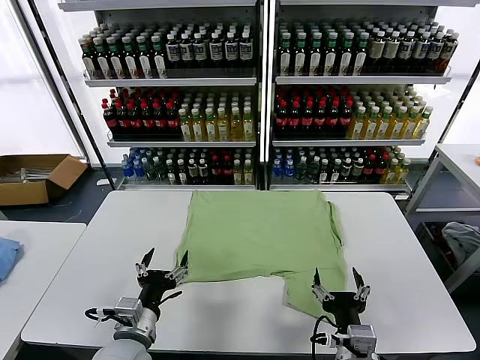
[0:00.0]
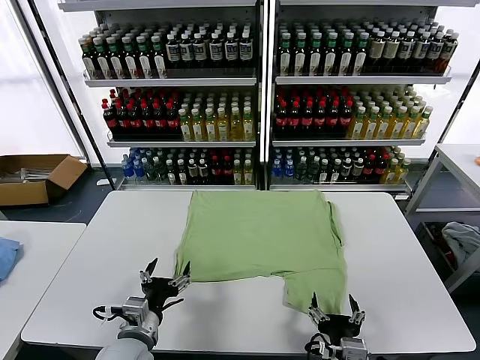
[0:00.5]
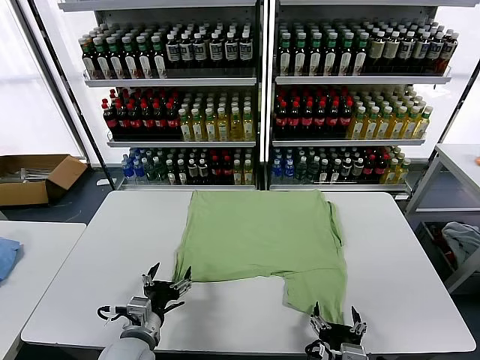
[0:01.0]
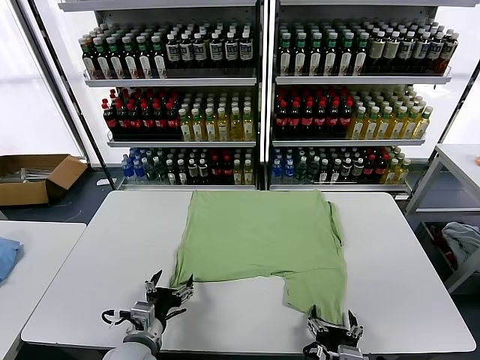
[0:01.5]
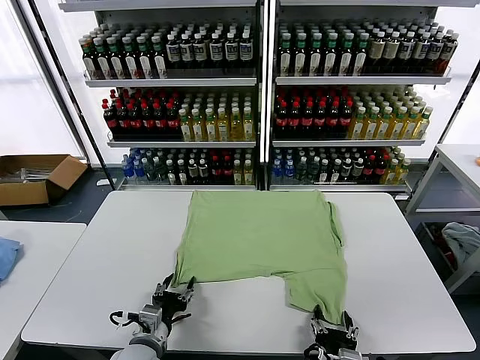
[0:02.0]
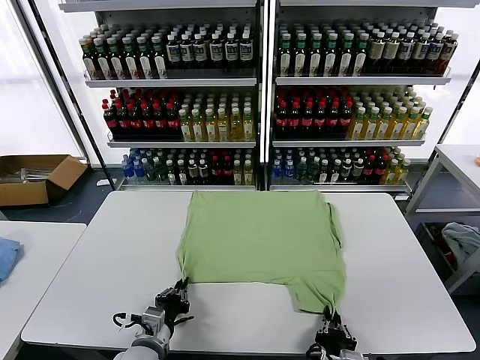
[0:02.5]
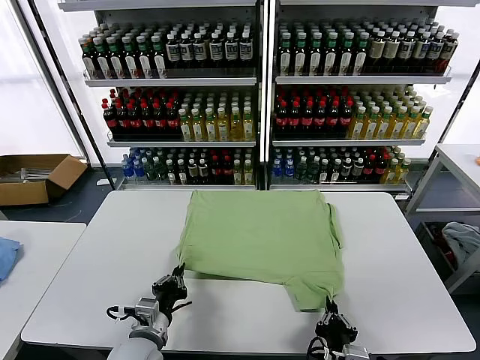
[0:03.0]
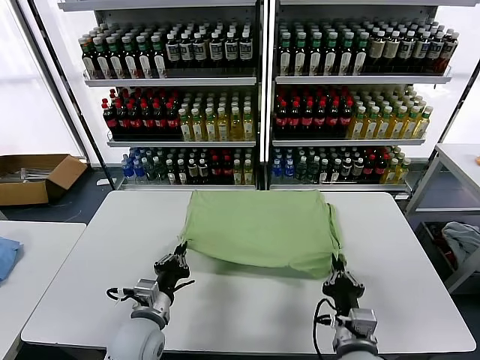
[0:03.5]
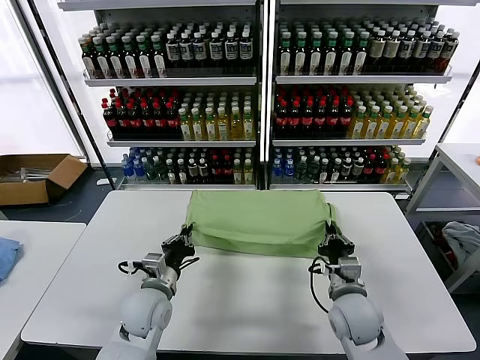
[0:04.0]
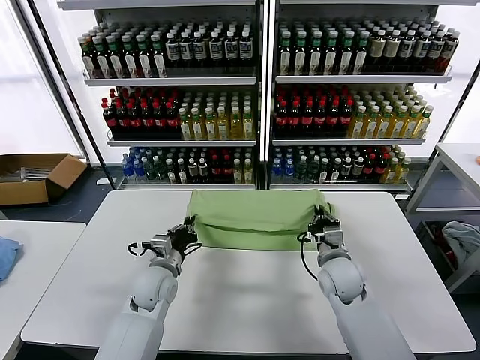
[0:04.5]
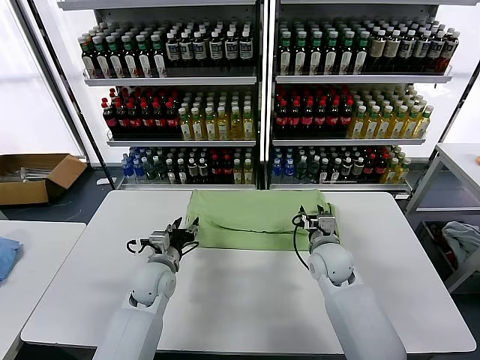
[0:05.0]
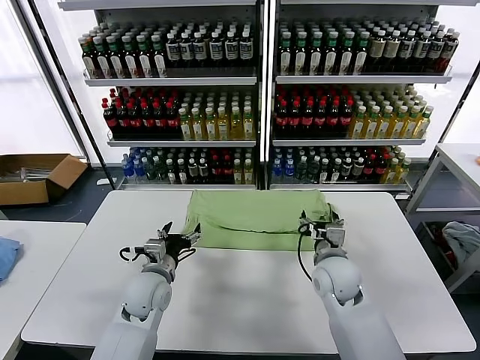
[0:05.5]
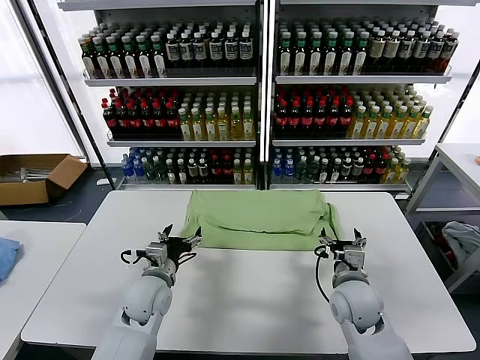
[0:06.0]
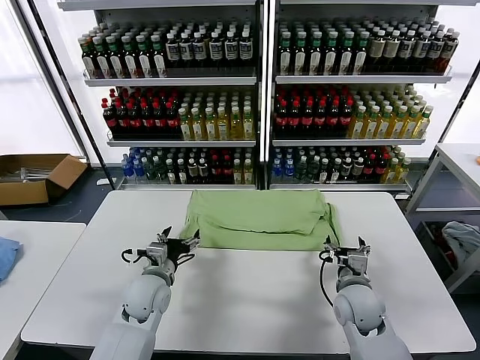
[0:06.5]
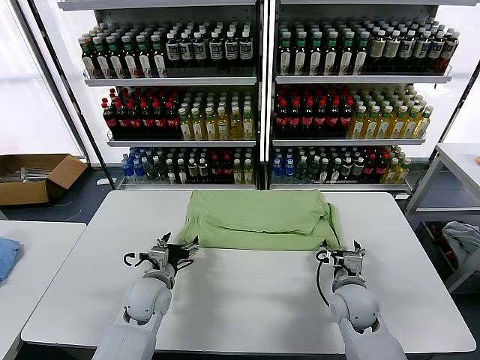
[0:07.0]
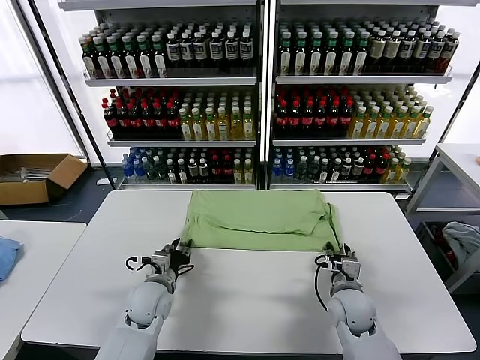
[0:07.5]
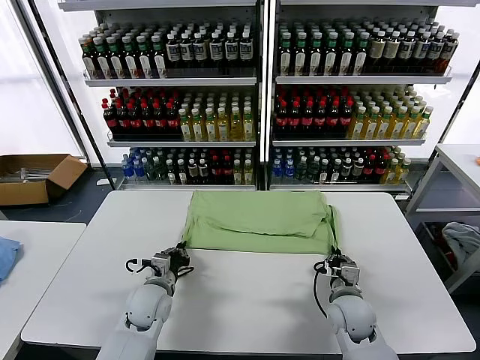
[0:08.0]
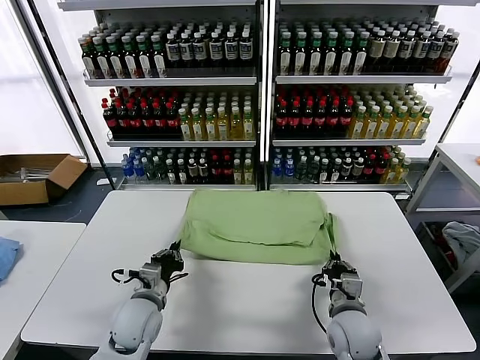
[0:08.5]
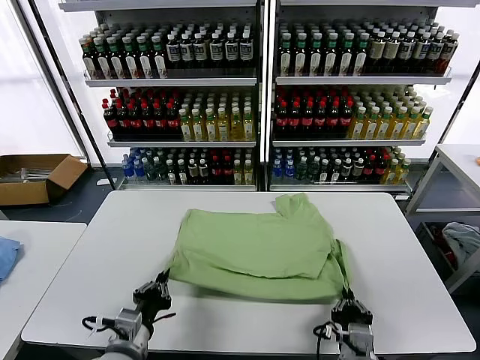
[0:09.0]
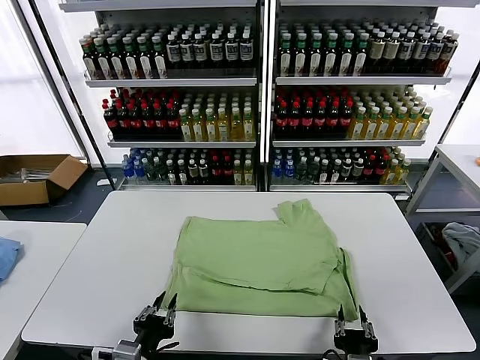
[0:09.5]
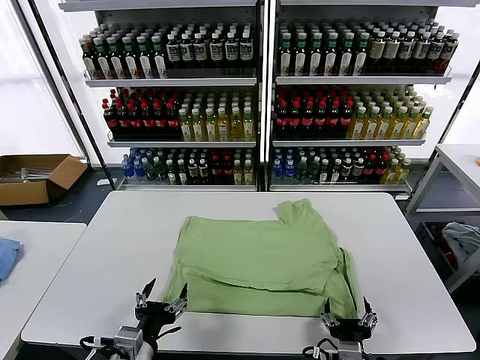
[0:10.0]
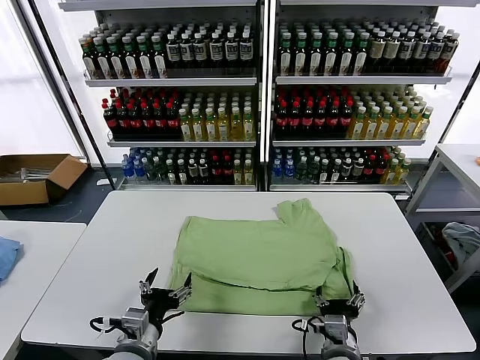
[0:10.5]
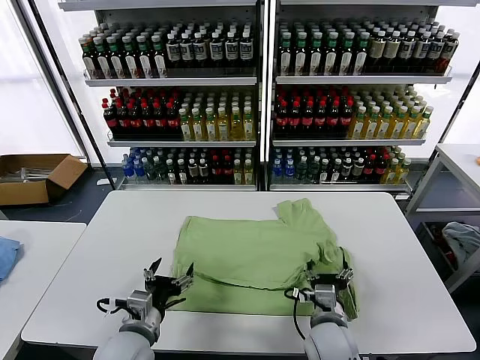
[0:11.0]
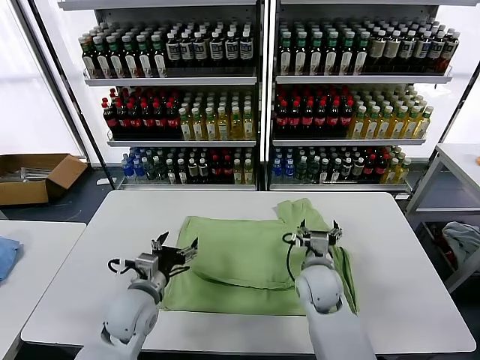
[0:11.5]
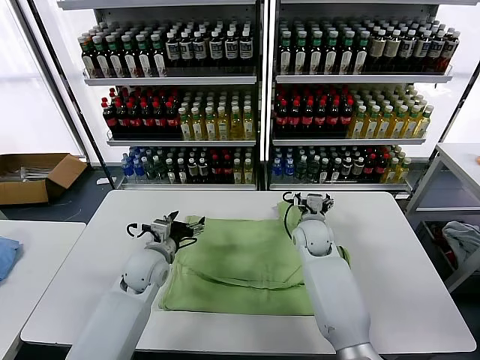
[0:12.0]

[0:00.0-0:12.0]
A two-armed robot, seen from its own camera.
Task of the whole recording: fold and organize the clothes.
Step, 0:00.0 to 0:02.5: use both grippers simultaneously to clamp the lower edge of the clothing fabric.
Step, 0:03.0 to 0:05.0: use both grippers to drag the lower edge of the fabric forward and fold it over the upper edge.
Step, 0:05.5 to 0:09.5: Drag the clothes downward with both gripper.
0:02.0 to 0:04.0: The left gripper goes some 10 cm forward, and closes up, while the right gripper travels forward by some 20 cm, and closes up.
0:04.0 to 0:06.0: The right gripper goes forward and returns, roughly 10 cm each way, and opens its fingers. Meanwhile the left gripper opens.
0:06.0 to 0:08.0: The right gripper moves downward, about 5 cm, and closes up; the left gripper closes up.
0:08.0 to 0:10.0: The grippers both shift backward by approximately 20 cm. The right gripper opens up, while the left gripper opens up.
0:10.0 to 0:12.0: The two grippers go approximately 30 cm forward.

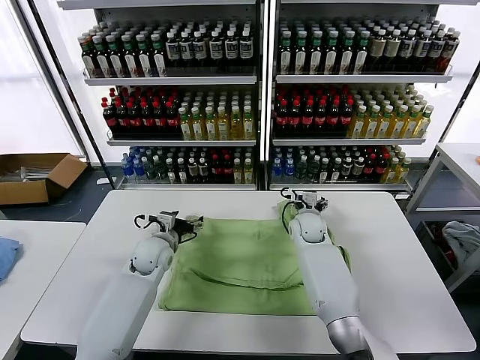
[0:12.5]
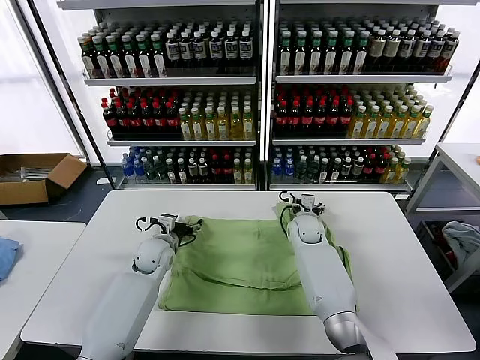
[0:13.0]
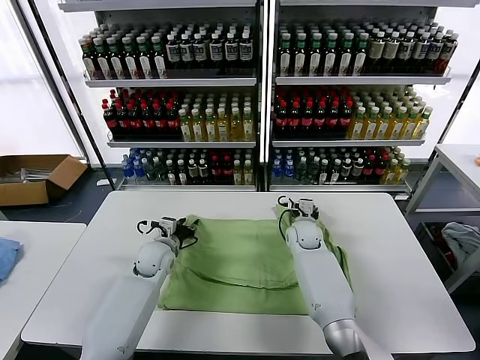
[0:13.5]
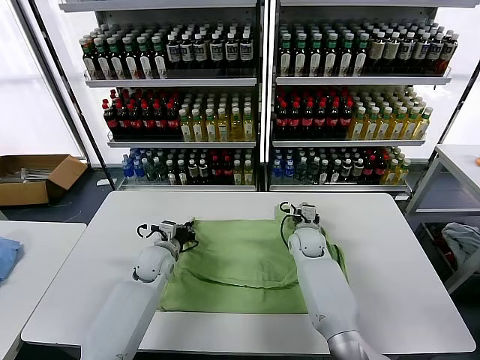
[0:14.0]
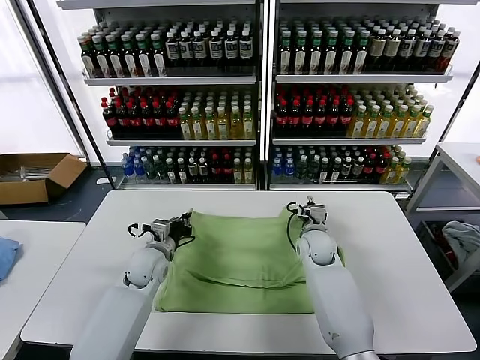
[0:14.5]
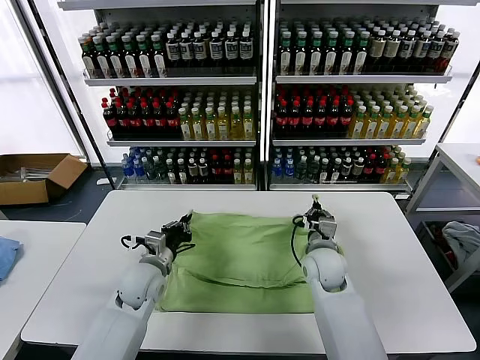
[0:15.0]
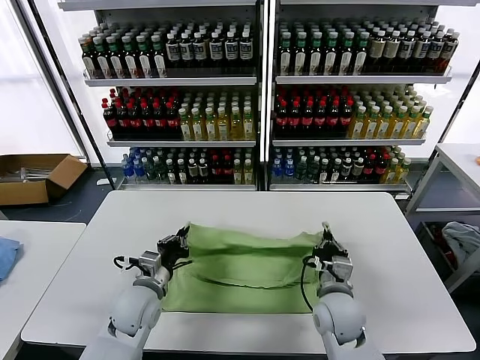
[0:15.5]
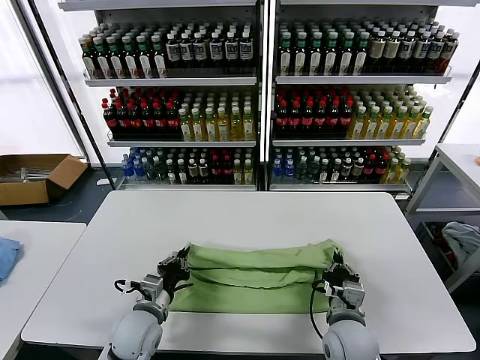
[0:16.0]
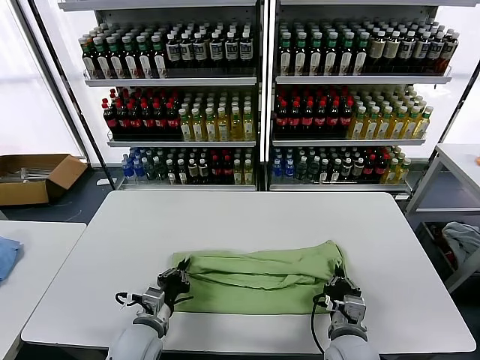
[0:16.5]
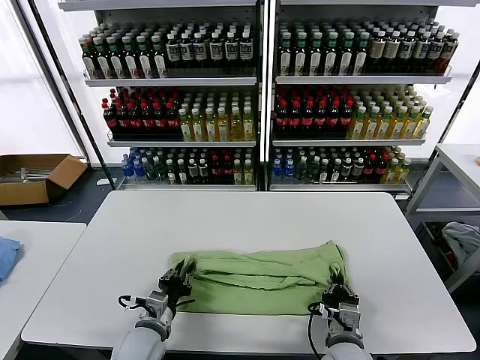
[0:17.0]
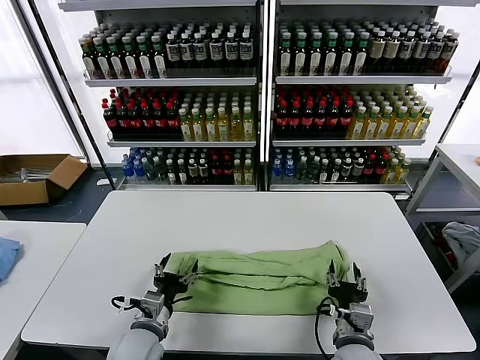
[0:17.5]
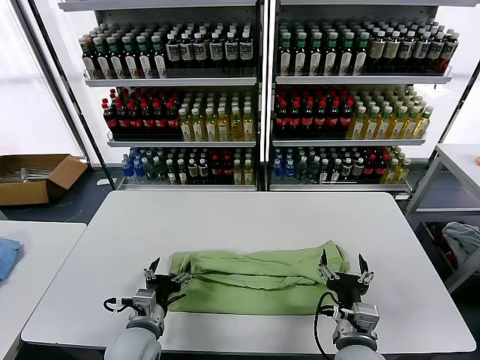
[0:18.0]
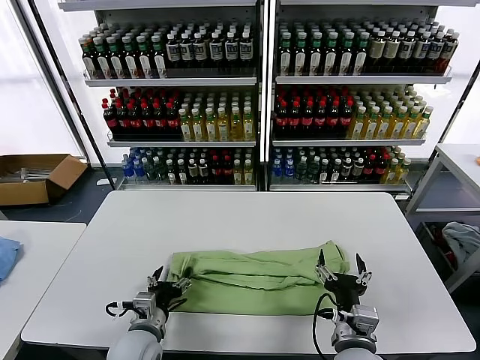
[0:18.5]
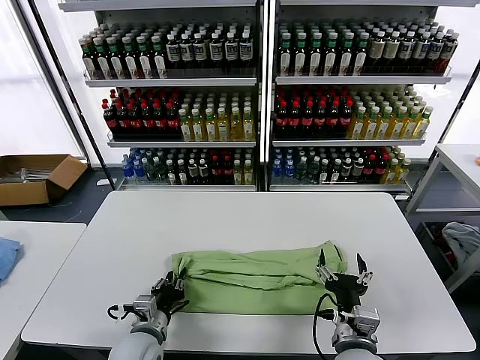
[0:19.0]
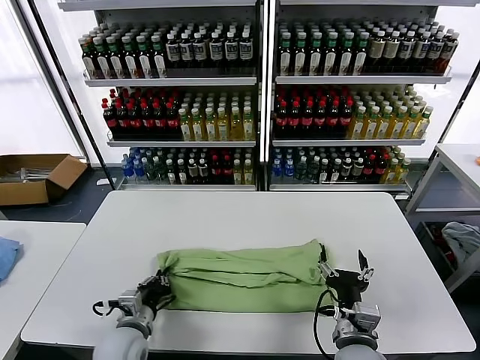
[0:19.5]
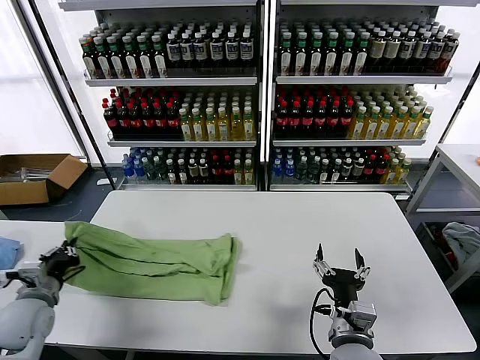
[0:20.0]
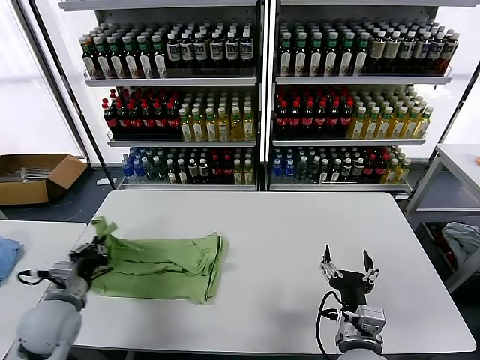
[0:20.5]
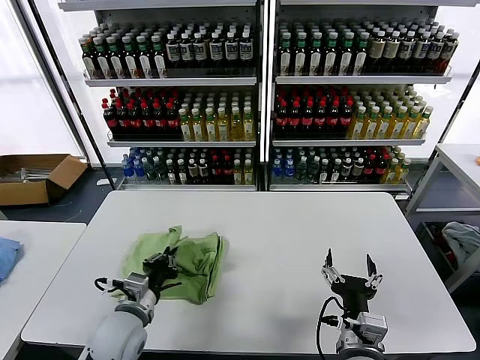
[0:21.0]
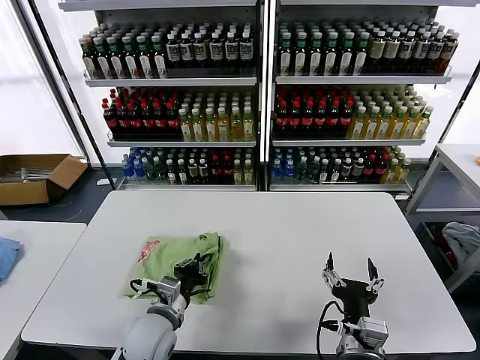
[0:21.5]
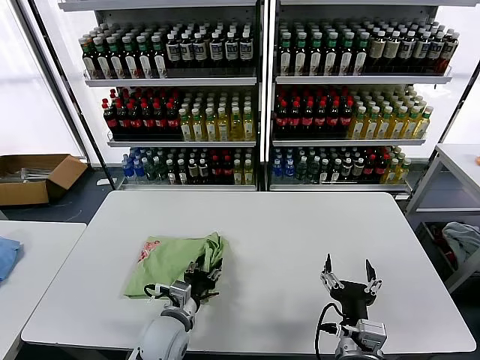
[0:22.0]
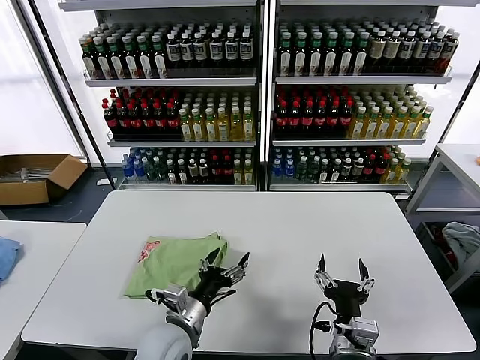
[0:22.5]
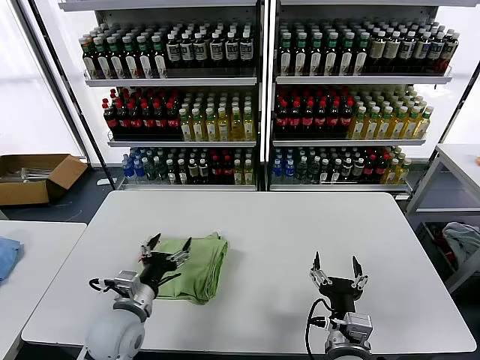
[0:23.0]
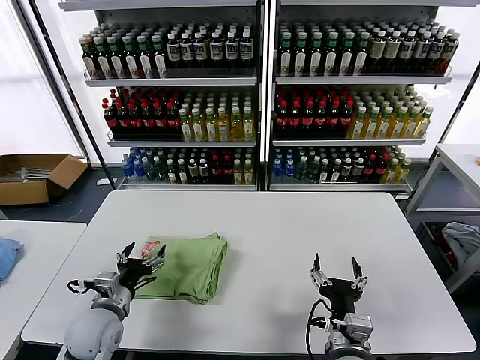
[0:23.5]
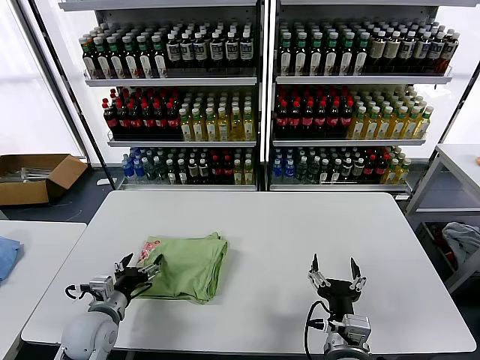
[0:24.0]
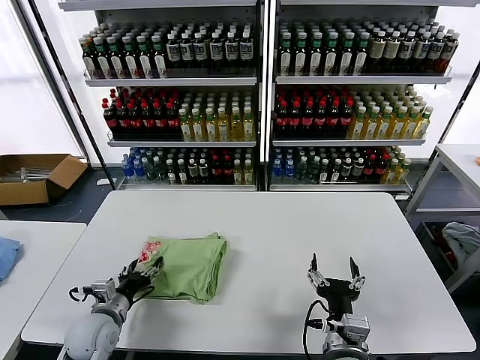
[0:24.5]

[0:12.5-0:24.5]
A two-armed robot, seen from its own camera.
Task of the whole recording: fold and organize the clothes.
Step, 0:14.0 to 0:17.5: use both grippers to drag the upper edge of the fabric backward and fold it over the lower edge.
Step, 0:18.0 to 0:19.0: use the left gripper to clamp the left edge of the fabric.
Step, 0:19.5 to 0:22.0: use the left gripper to drag the left edge of the fabric to the left and folds it over the right edge.
0:12.5 to 0:14.5: The left gripper closes its fingers, while the right gripper shifts approximately 5 cm backward, and closes up.
0:14.5 to 0:16.5: Both grippers travel together backward, some 20 cm.
0:16.5 to 0:18.5: The right gripper shifts by approximately 5 cm, and opens its fingers; the left gripper opens.
0:18.5 to 0:20.5: The left gripper heads to the left and upward, covering about 20 cm, and closes.
0:20.5 to 0:22.5: The left gripper goes roughly 25 cm to the right, and opens.
0:22.5 to 0:24.5: The left gripper travels to the left by roughly 20 cm.

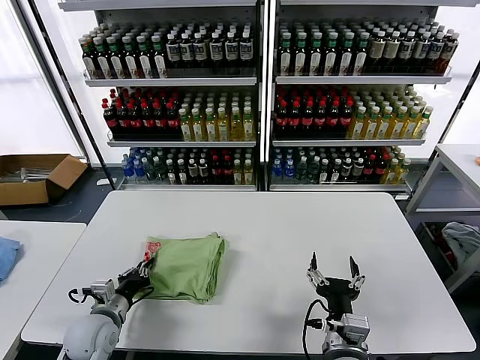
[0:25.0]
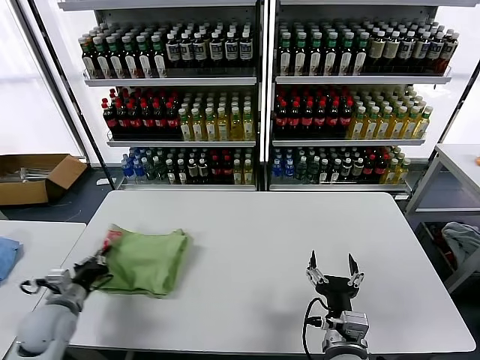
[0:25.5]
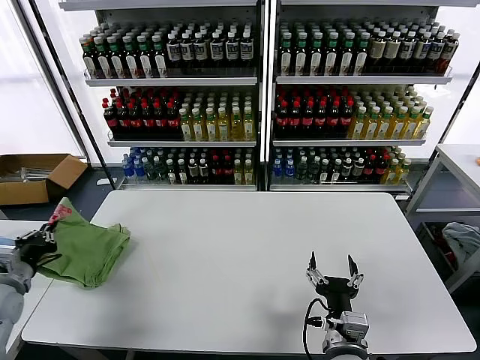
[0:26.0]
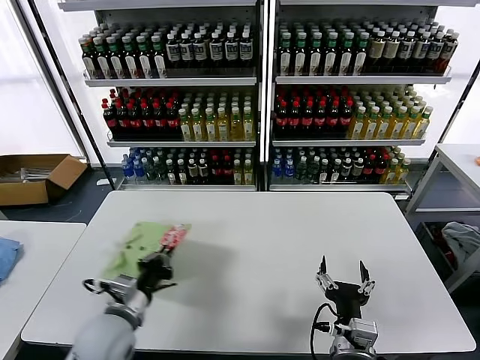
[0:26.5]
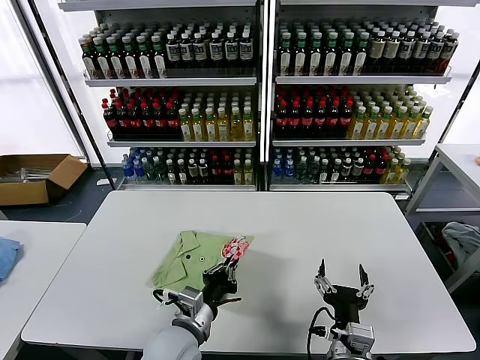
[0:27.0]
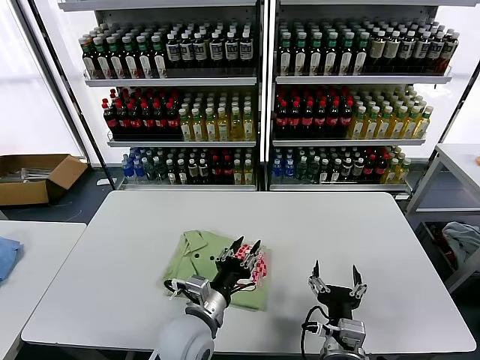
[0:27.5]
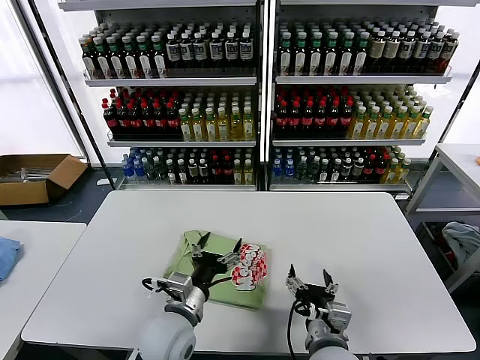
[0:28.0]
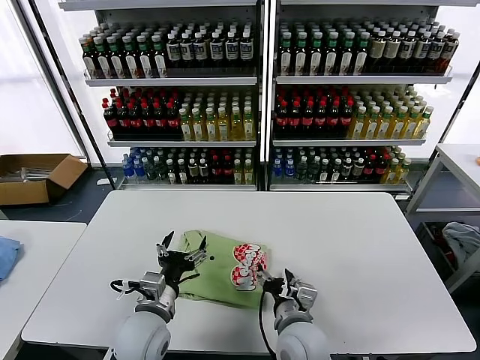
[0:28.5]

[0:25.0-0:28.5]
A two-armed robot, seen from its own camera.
Task of the whole recording: fold and organize the clothes.
Step, 0:25.0 to 0:27.5: Flip the folded clothes over with left gripper.
0:25.0 to 0:27.0: The left gripper is displaced to the right by some 20 cm.
0:27.0 to 0:28.5: The left gripper goes approximately 5 cm to the left, and opens; the right gripper heads forward and to the left, covering about 10 cm.
